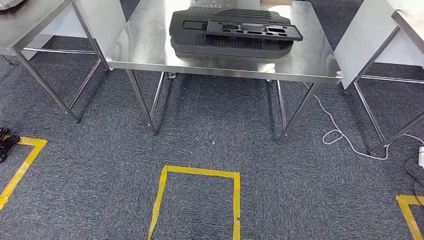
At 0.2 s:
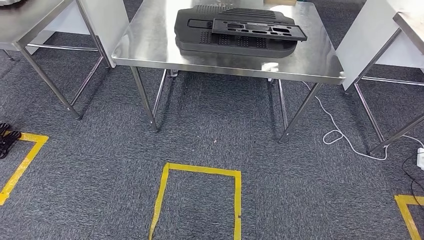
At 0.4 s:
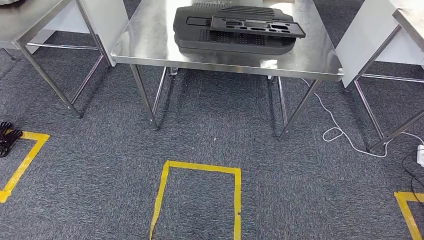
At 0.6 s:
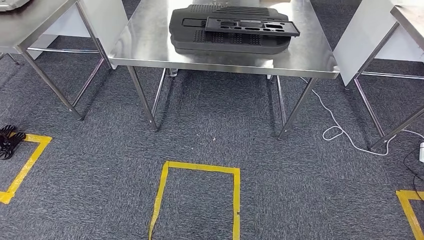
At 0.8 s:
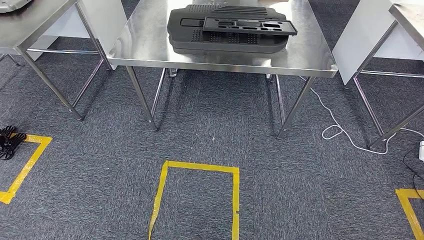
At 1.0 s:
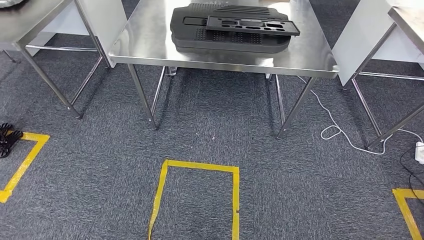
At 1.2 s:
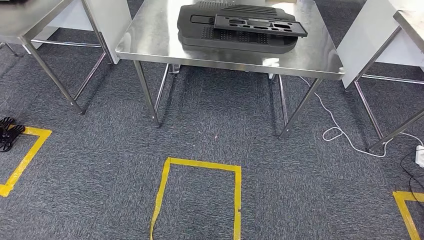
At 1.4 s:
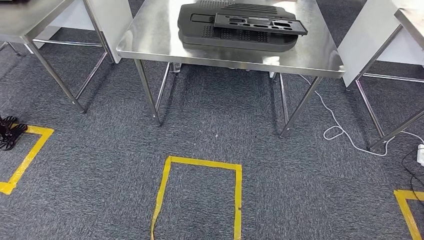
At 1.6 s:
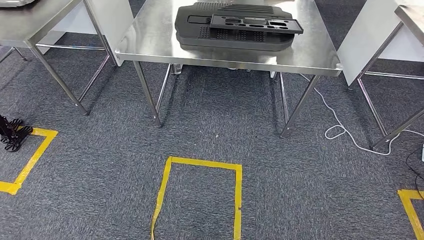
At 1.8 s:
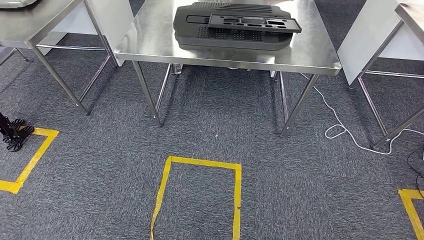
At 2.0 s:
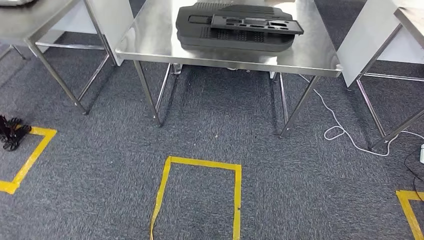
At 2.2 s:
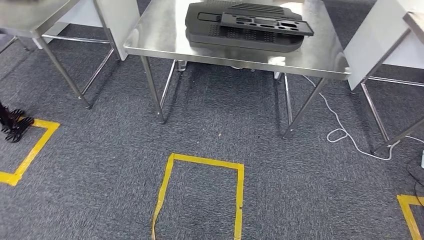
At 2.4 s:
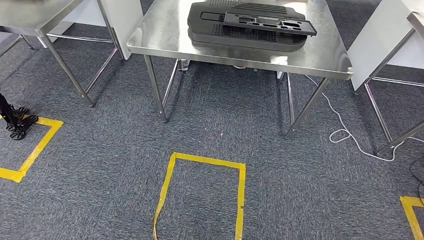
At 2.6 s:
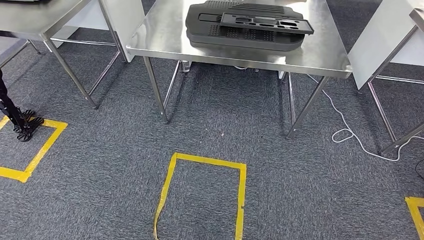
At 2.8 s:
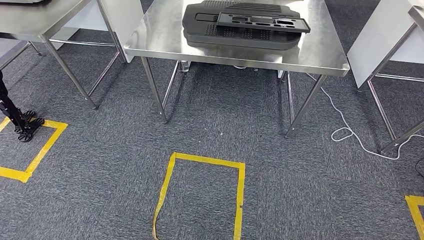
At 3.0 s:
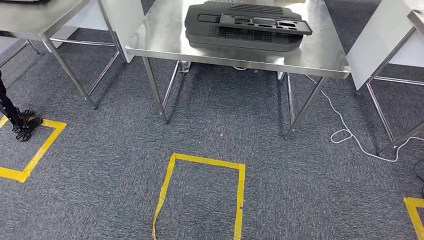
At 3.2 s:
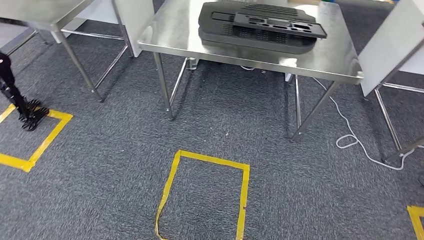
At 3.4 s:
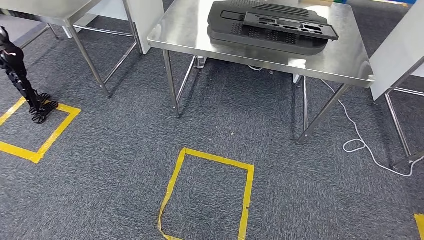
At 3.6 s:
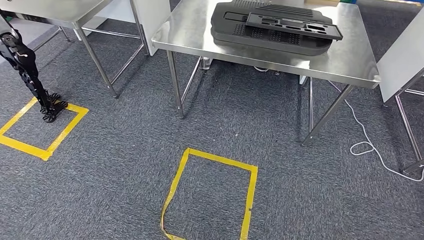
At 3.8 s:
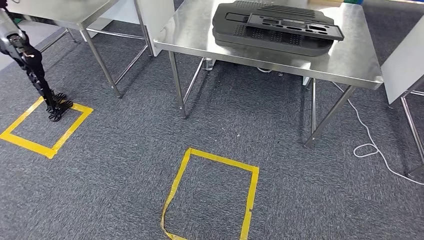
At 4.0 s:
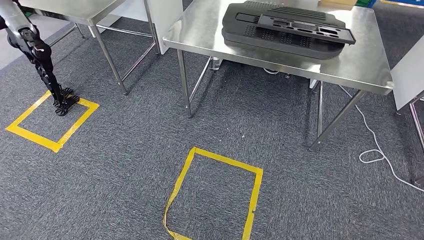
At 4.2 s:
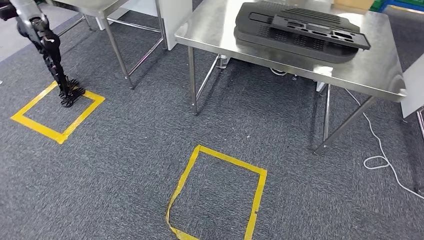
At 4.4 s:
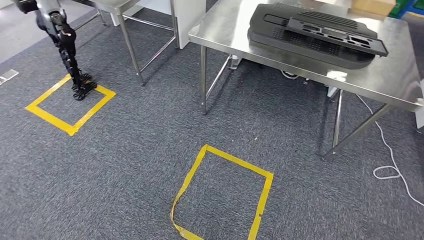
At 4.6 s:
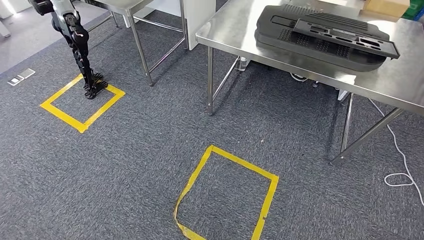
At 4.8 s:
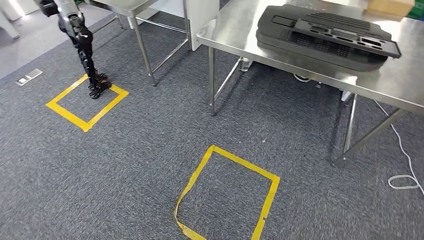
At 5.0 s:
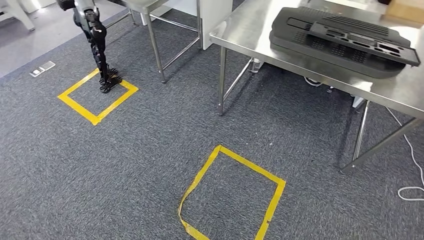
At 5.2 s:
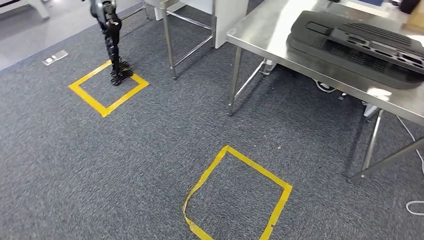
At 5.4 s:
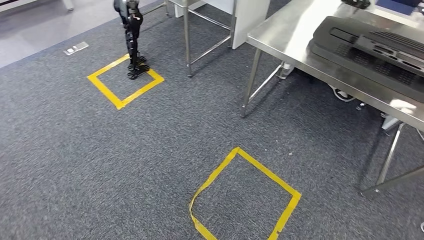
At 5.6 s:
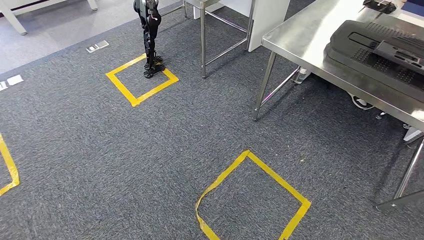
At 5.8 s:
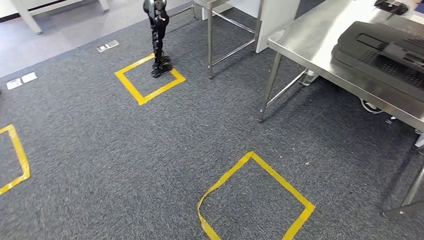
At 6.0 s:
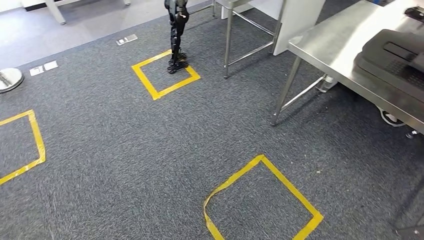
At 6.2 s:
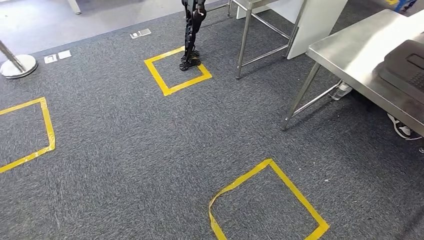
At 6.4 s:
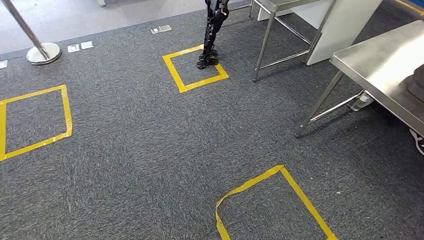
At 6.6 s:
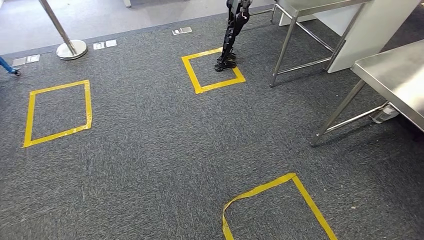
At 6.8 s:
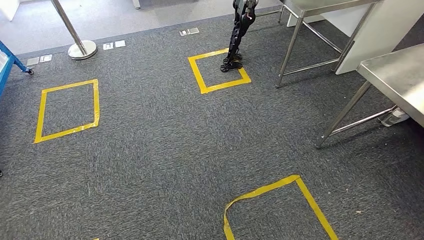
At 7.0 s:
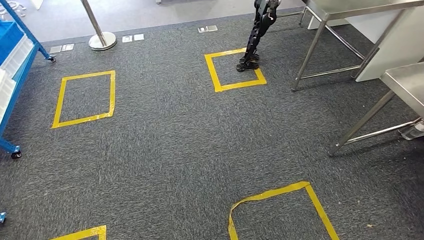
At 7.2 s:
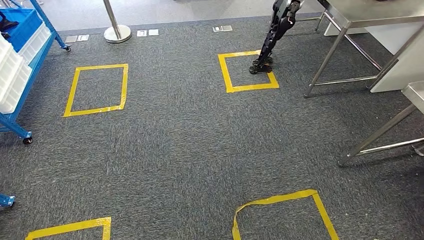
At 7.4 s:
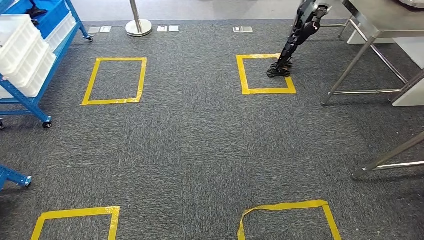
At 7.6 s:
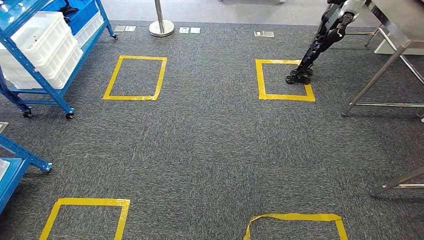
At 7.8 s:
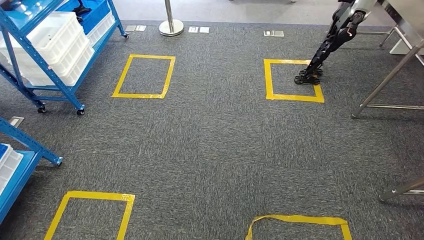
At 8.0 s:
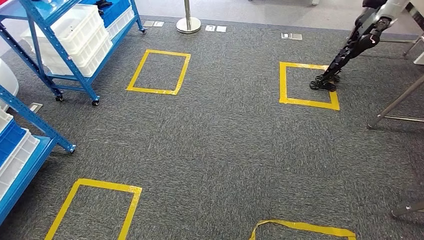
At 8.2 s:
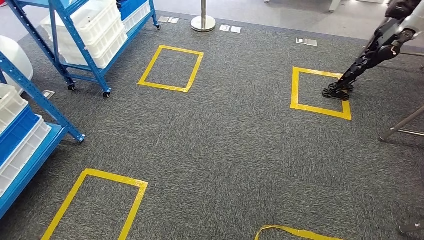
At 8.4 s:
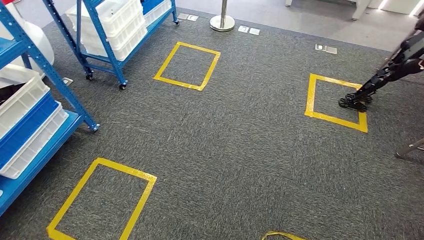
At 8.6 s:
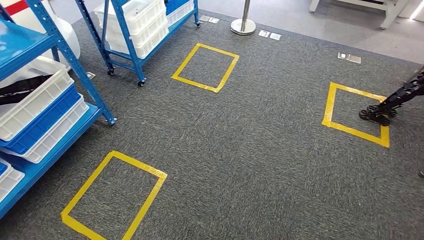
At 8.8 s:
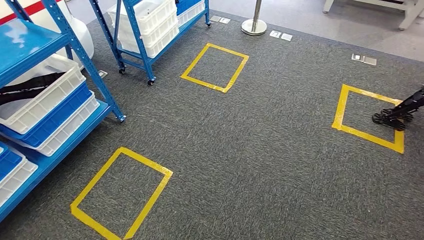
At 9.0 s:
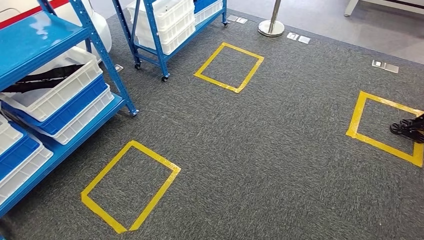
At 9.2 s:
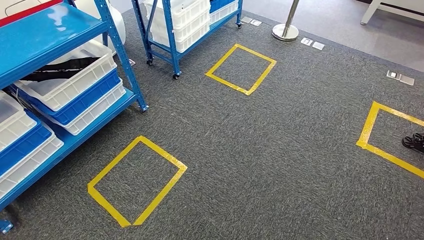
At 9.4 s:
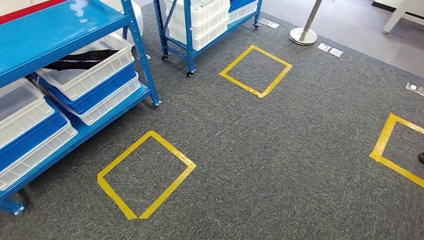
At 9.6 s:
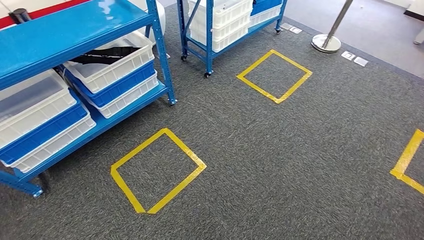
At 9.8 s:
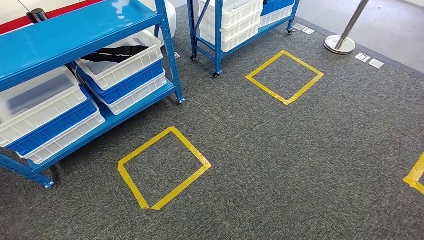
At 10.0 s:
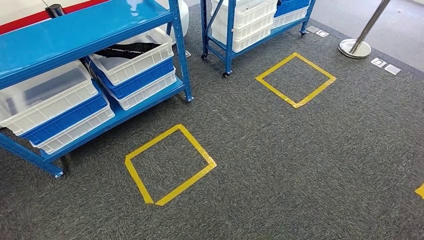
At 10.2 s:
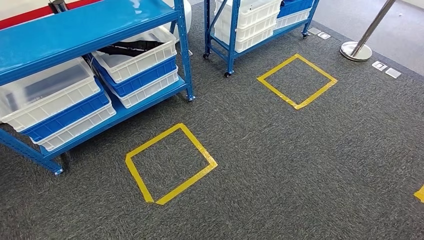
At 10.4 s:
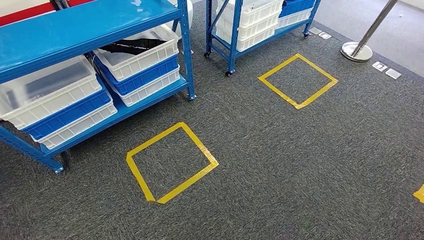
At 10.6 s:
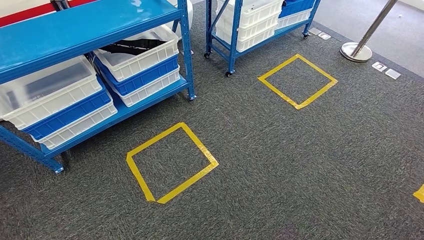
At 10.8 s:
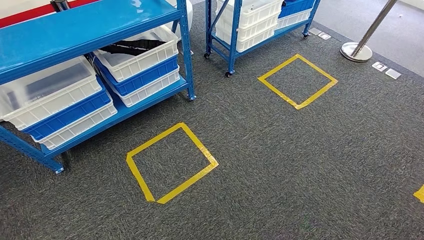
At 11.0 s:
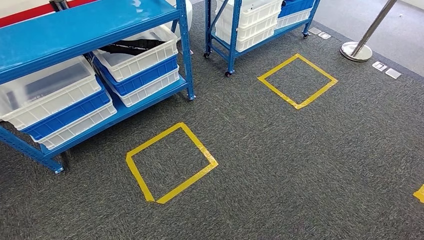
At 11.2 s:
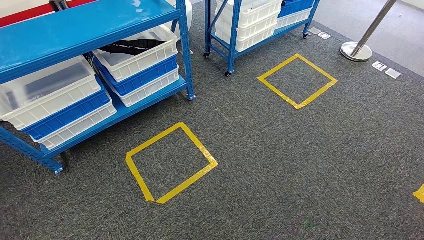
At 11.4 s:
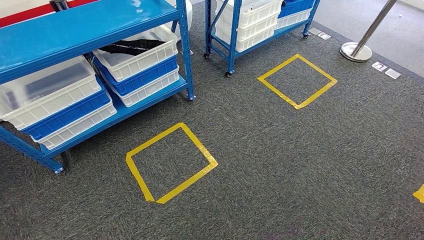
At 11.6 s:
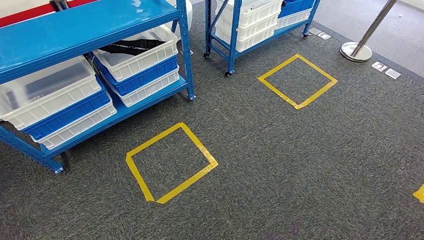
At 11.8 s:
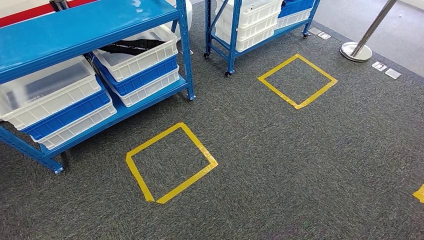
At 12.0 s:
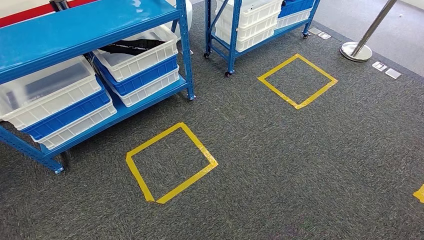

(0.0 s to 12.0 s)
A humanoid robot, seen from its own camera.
10.4 s - 12.0 s: Neither hand changes place.

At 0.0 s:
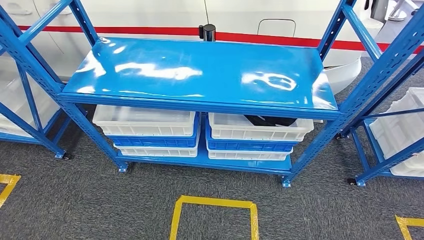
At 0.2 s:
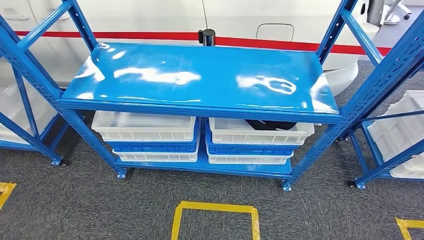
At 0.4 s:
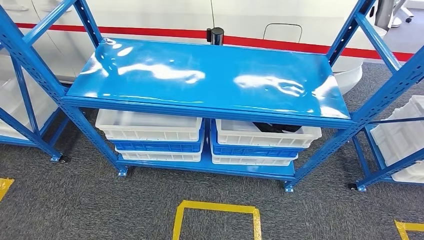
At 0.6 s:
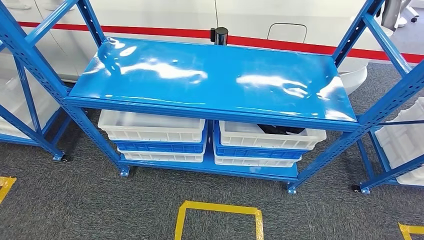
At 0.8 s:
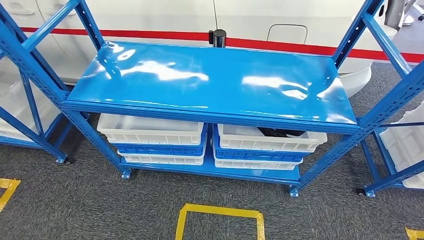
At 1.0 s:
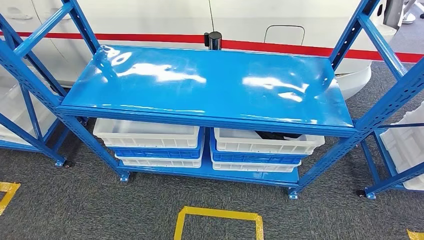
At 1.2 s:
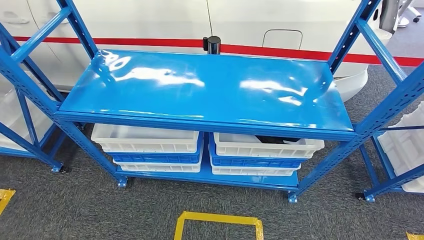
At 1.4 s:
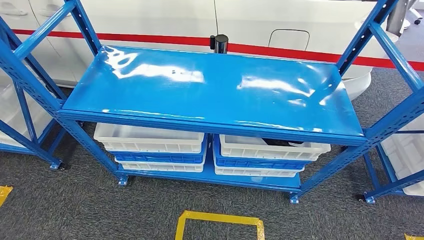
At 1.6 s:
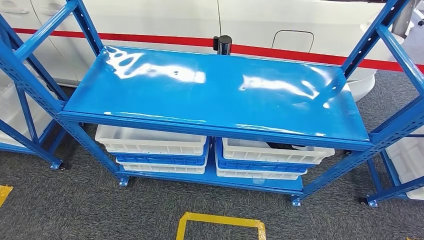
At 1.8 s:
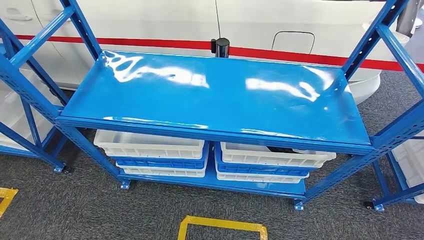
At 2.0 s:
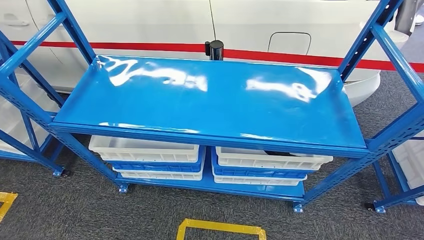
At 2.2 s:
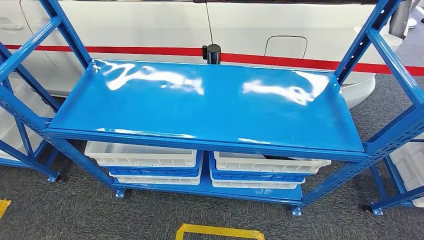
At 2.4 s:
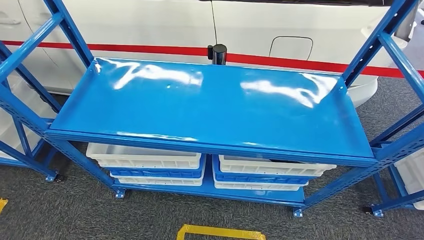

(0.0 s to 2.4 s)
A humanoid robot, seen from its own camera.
Step, 0.0 s - 2.4 s: Move to the initial position of the shelf.
